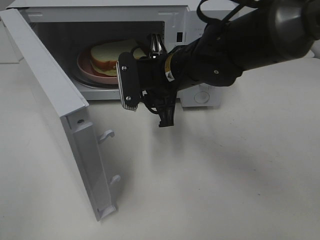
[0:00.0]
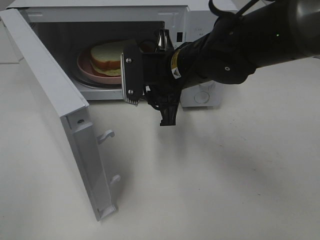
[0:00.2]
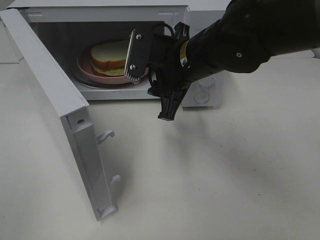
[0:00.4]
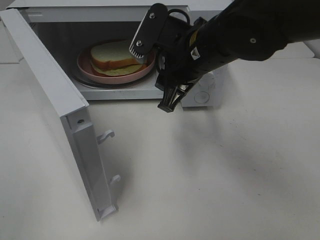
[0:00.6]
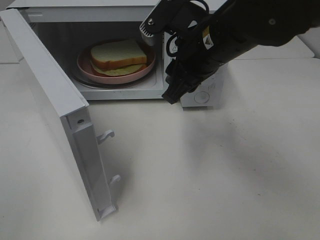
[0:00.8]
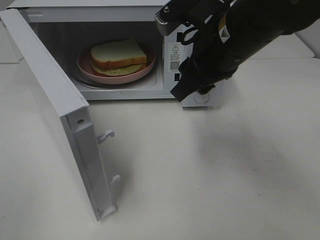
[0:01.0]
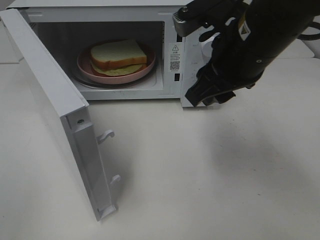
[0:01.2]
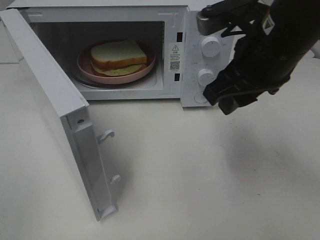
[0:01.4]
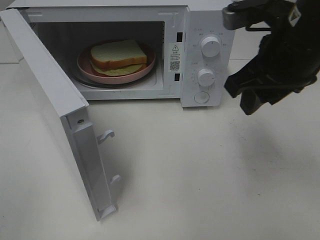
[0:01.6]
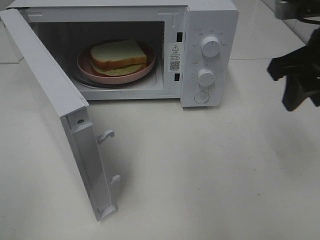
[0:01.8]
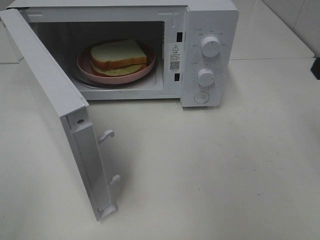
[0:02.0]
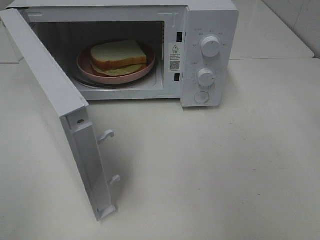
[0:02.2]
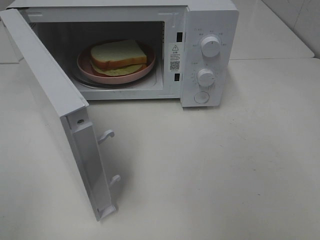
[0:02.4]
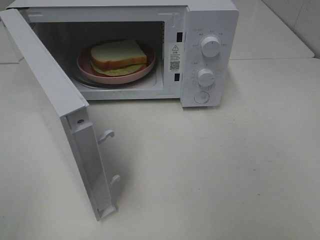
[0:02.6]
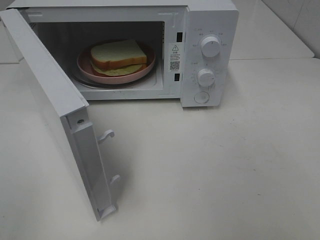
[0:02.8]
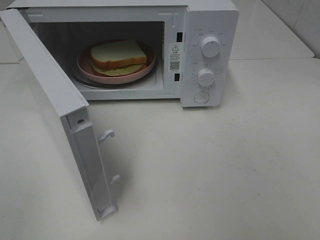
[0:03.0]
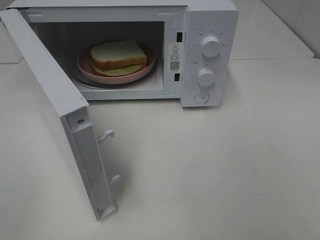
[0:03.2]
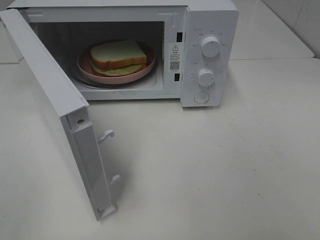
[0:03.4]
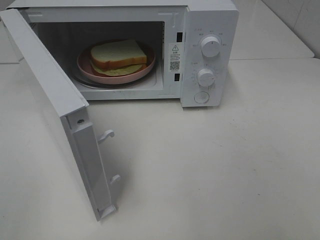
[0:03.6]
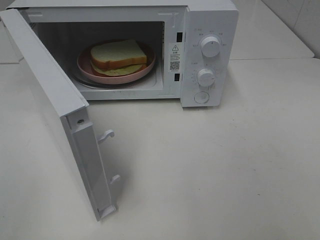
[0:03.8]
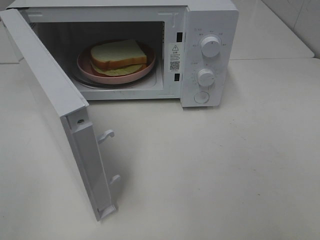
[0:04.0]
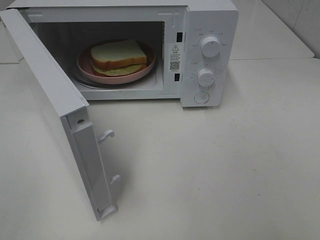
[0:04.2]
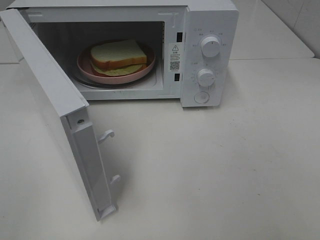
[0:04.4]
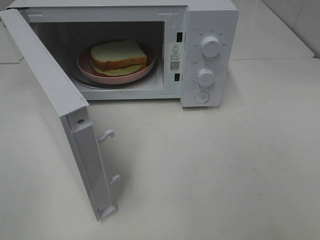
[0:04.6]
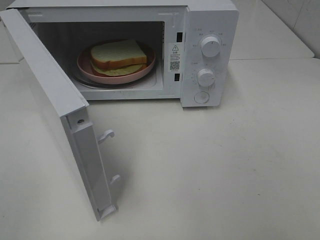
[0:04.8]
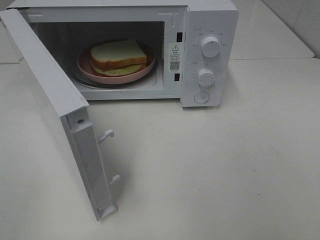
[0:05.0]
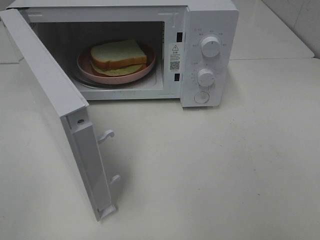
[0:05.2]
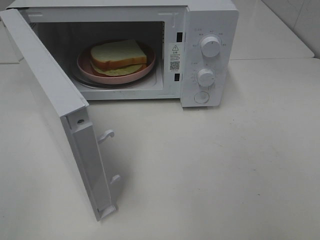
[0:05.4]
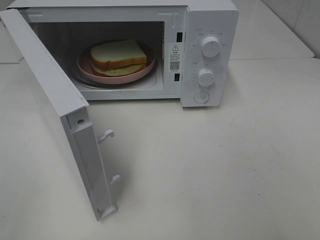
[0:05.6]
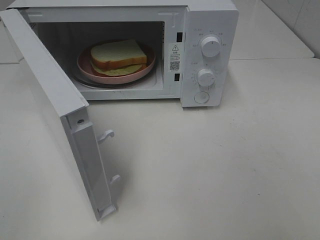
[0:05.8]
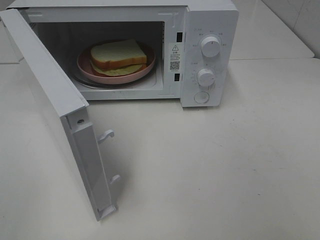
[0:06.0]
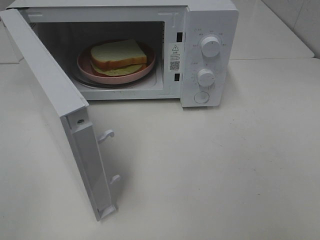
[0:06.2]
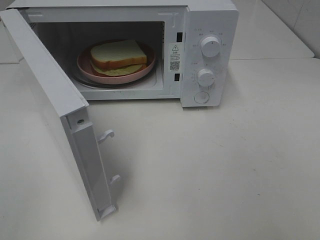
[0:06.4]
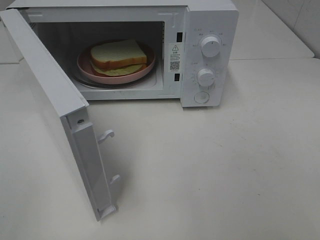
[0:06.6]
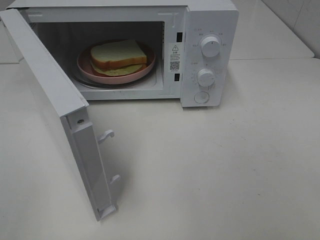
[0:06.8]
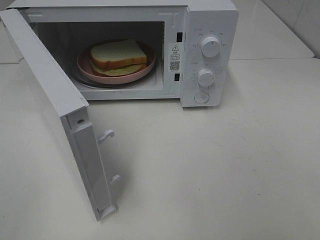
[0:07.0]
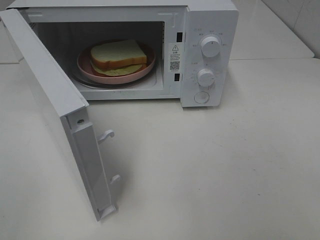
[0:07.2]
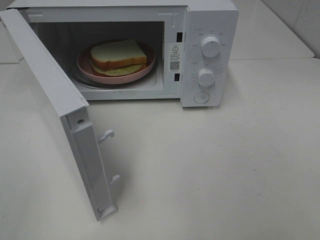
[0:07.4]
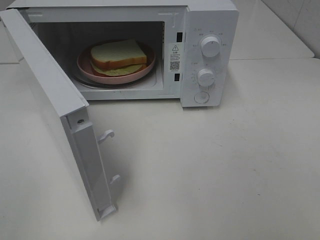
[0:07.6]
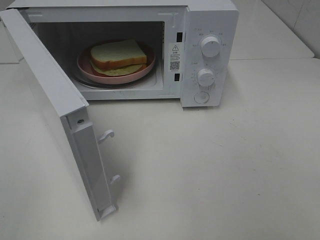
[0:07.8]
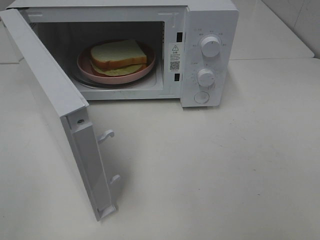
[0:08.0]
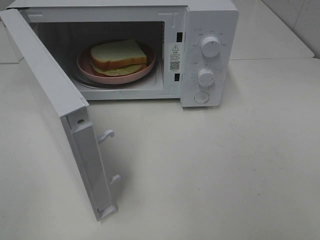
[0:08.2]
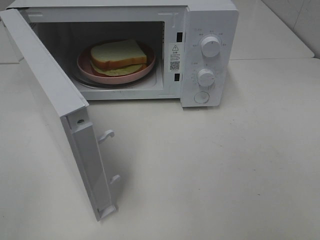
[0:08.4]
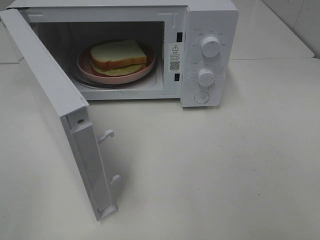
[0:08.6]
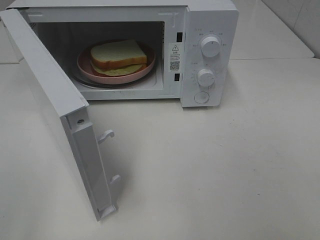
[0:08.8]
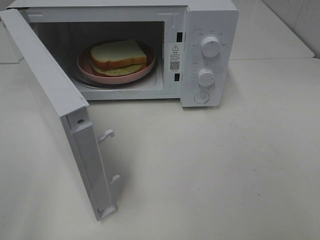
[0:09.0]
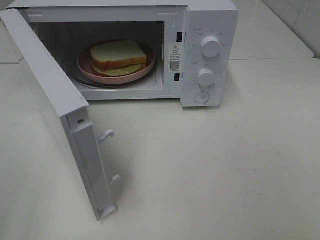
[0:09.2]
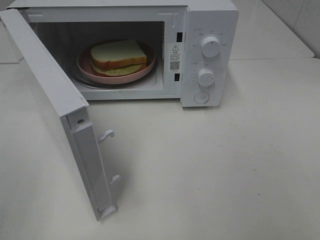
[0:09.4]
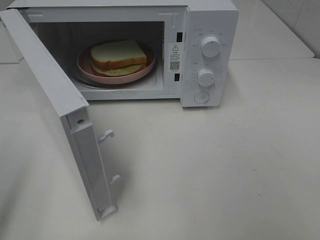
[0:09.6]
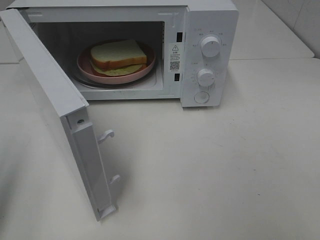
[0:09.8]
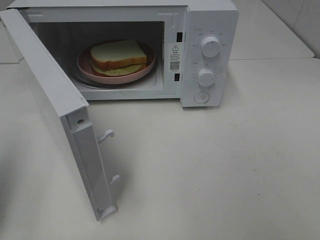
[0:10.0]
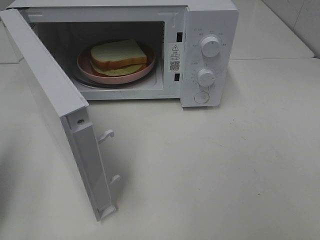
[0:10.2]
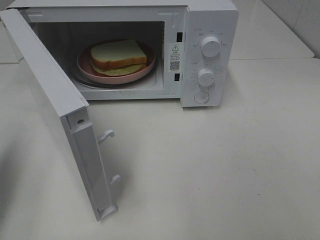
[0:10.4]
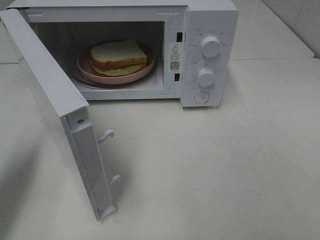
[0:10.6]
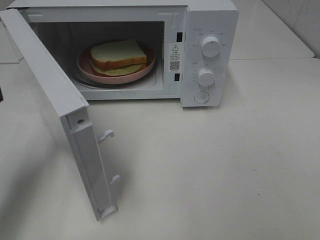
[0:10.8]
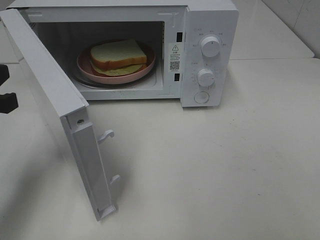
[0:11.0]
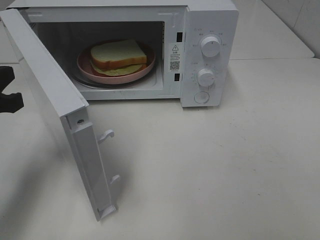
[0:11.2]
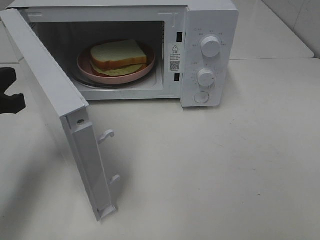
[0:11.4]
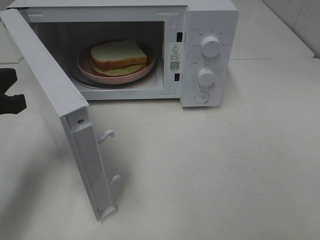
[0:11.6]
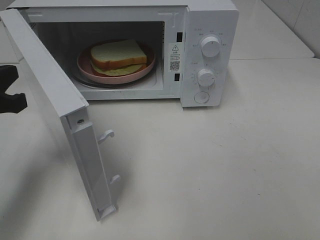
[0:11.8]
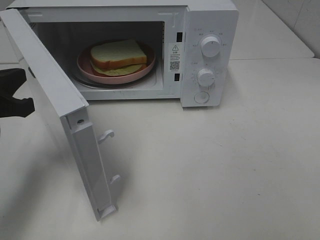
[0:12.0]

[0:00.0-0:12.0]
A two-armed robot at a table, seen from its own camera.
Task of the whole recording: Heat Sandwich.
0:00.0 to 0:01.6: The right gripper is displaced to the right, upward and backward by approximately 20 cm.
0:01.6 to 0:03.0: The right gripper goes some 20 cm backward and to the right.
0:09.0 to 0:10.4: The left gripper goes approximately 15 cm forward and downward, and closes up.
0:10.4 to 0:12.0: The left gripper heads to the right and downward, covering approximately 10 cm.

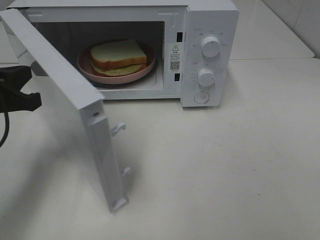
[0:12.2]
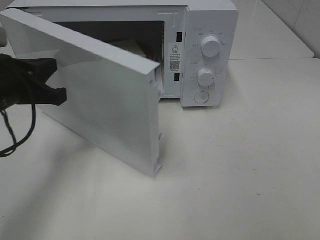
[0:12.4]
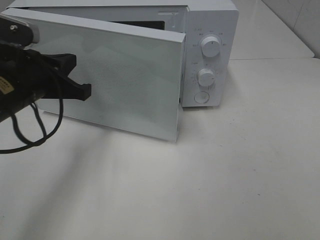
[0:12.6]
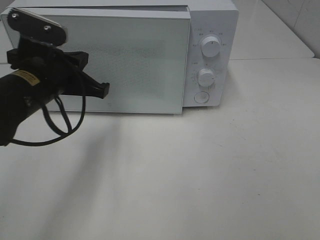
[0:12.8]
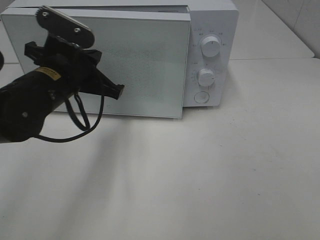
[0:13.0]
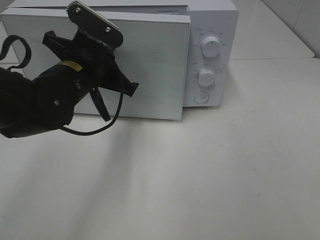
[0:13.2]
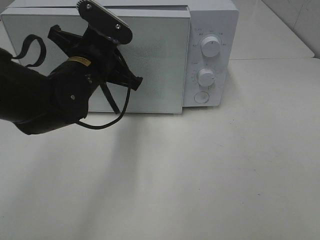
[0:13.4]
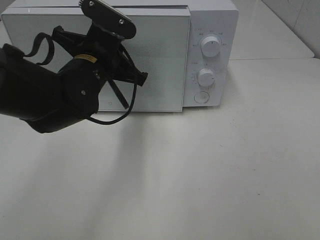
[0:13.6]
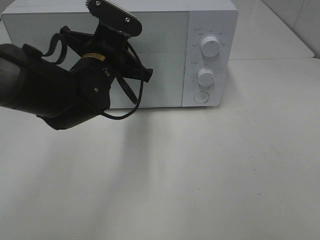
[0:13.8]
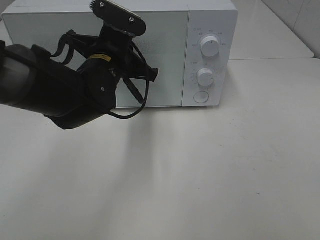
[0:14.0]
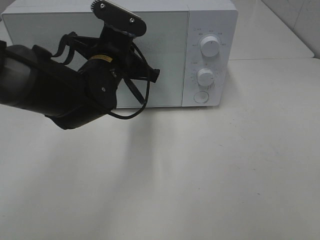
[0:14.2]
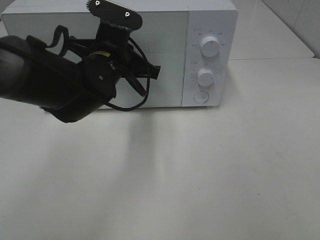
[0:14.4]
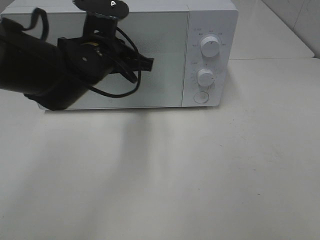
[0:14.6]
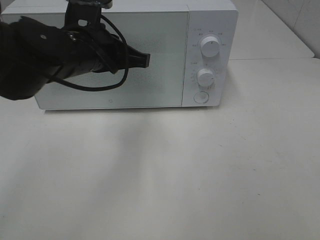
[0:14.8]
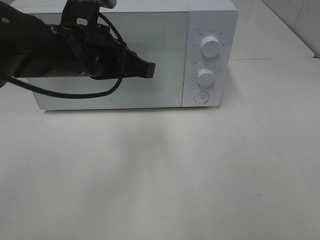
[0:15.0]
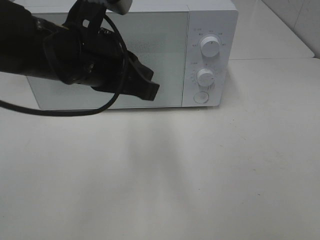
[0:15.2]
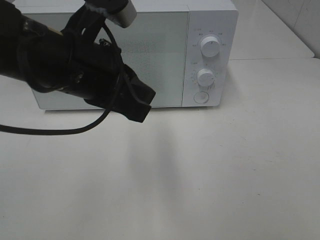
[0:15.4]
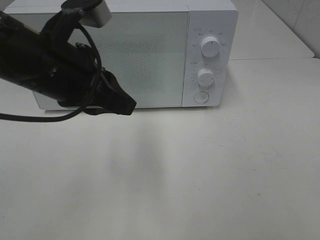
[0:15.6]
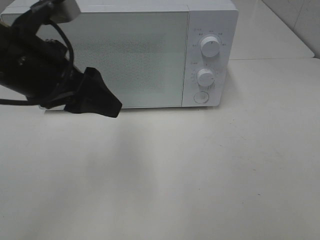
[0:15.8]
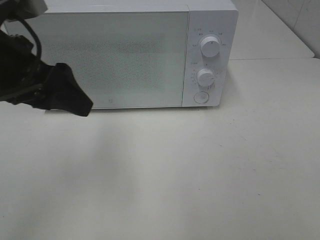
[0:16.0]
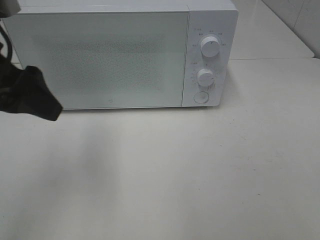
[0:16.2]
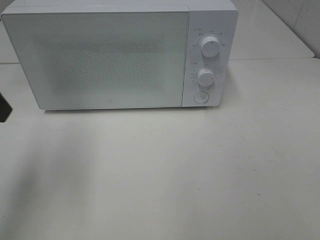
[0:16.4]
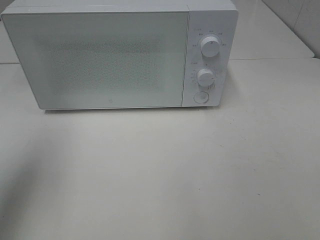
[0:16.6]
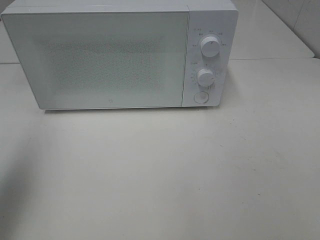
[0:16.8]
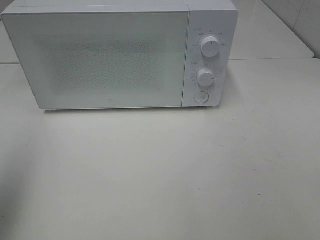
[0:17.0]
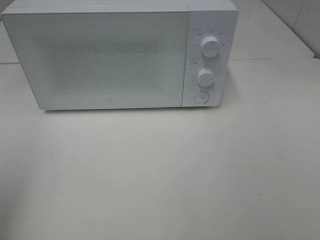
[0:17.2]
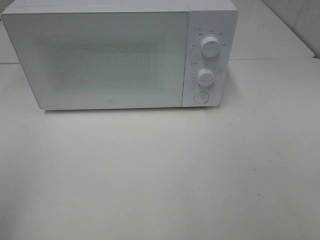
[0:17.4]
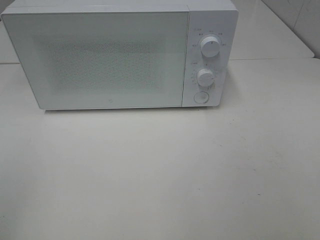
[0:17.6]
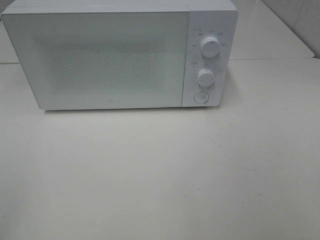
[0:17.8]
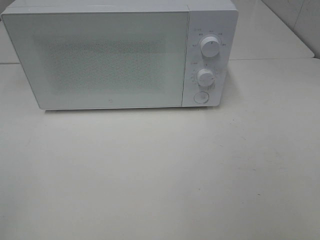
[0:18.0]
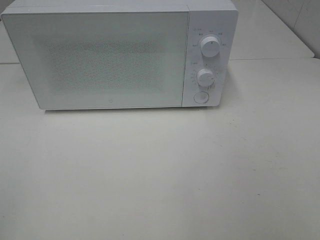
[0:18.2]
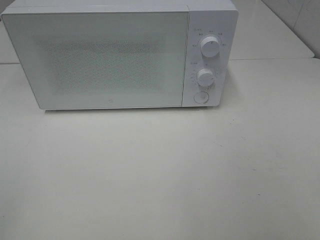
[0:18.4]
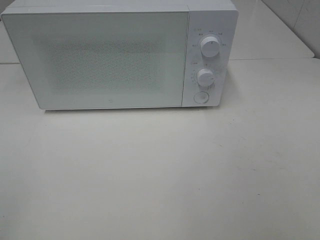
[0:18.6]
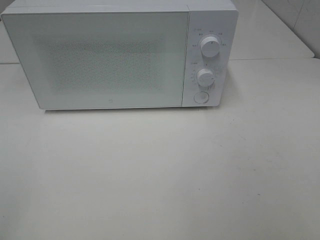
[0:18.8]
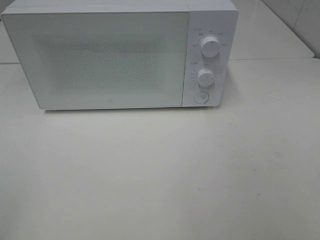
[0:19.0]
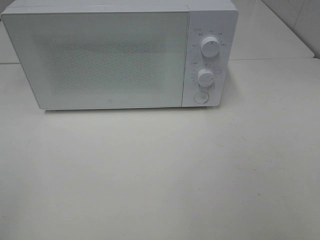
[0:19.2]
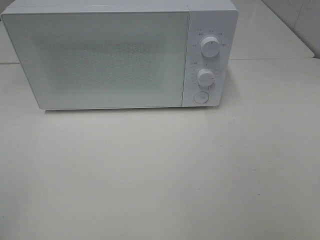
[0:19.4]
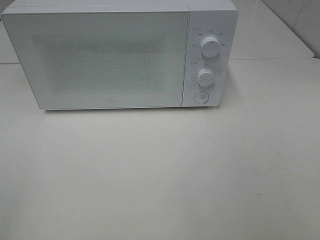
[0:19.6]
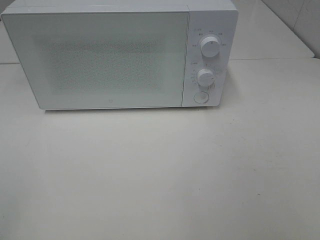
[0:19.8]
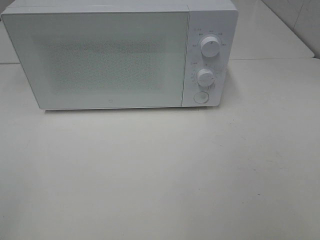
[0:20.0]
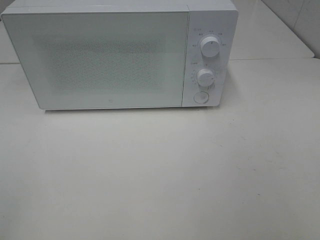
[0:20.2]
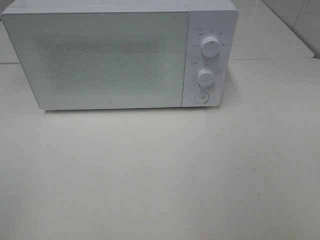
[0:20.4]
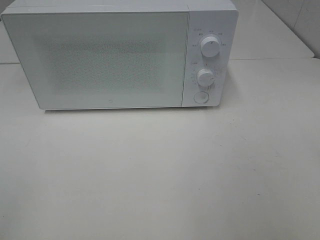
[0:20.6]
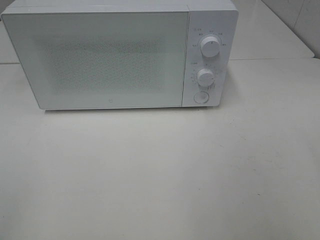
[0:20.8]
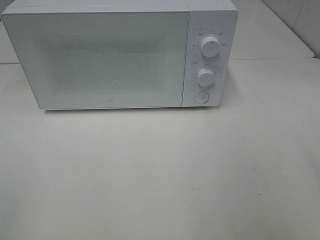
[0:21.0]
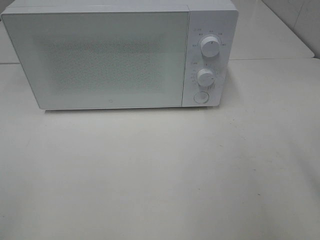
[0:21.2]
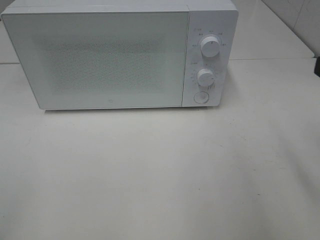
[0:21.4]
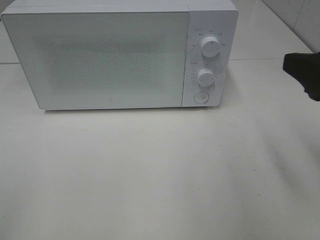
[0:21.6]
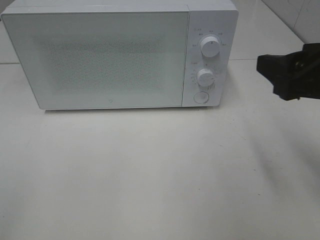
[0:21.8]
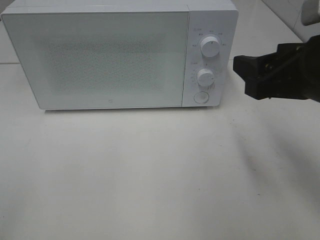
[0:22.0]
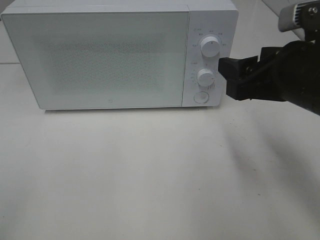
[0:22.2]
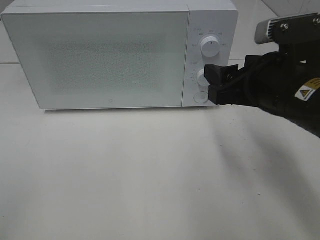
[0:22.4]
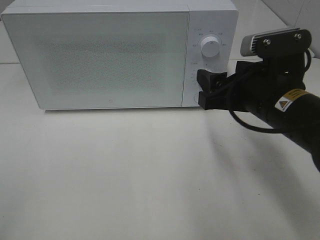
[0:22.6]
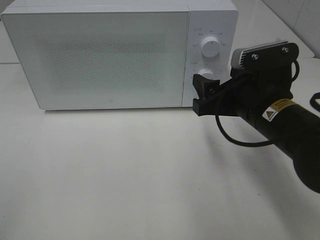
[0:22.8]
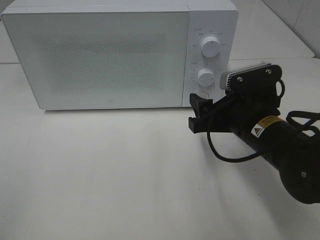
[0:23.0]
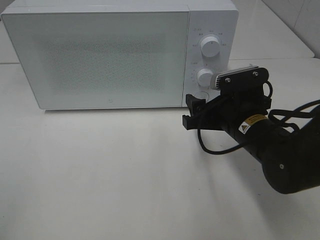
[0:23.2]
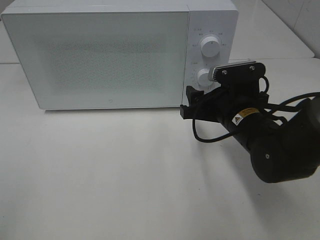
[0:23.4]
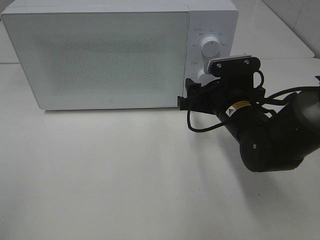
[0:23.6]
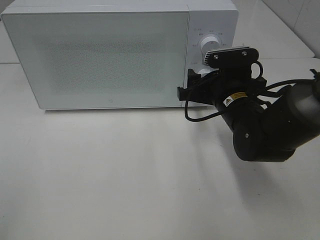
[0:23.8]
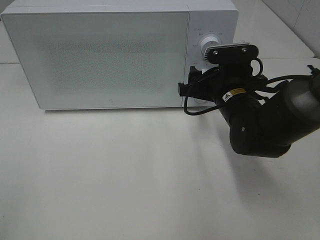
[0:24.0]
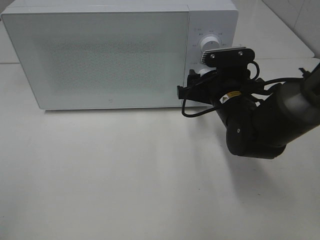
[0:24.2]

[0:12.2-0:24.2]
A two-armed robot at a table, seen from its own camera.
Task of the whole recording: Heat Sandwich.
Step, 0:12.2 to 0:16.0: Left hand: close the microwave door.
0:12.2 to 0:13.8: The left gripper travels to the right and forward by about 20 cm.
0:13.8 to 0:15.2: The left gripper shifts about 10 cm backward and upward.
0:15.2 to 0:16.6: The left gripper is displaced to the left by roughly 20 cm, and opens.
0:16.6 to 0:18.2: The left gripper is displaced backward by approximately 20 cm.
0:21.2 to 0:22.6: The right gripper travels forward, to the left and downward by about 20 cm.
0:22.6 to 0:24.2: The right gripper heads forward and downward, covering approximately 10 cm.
